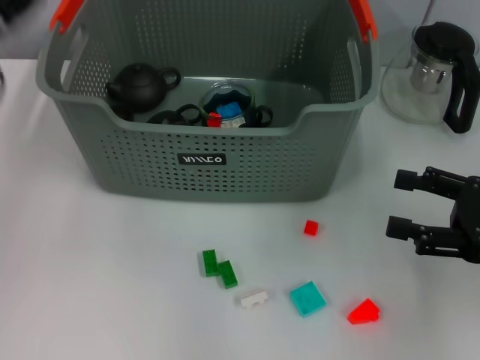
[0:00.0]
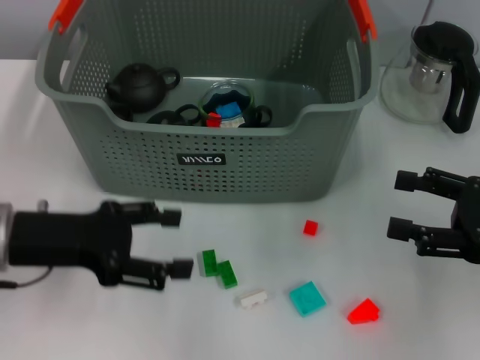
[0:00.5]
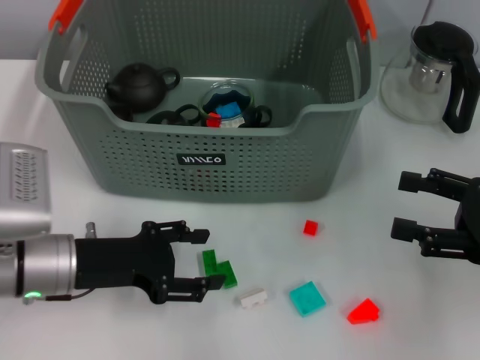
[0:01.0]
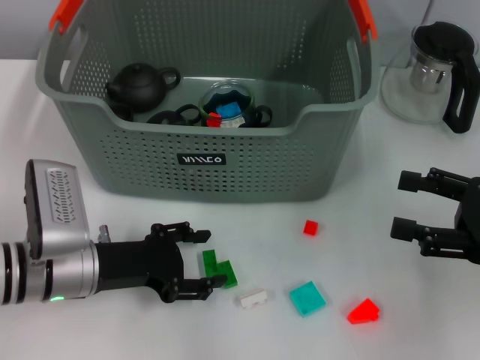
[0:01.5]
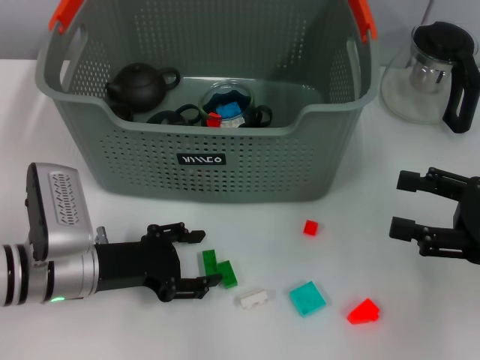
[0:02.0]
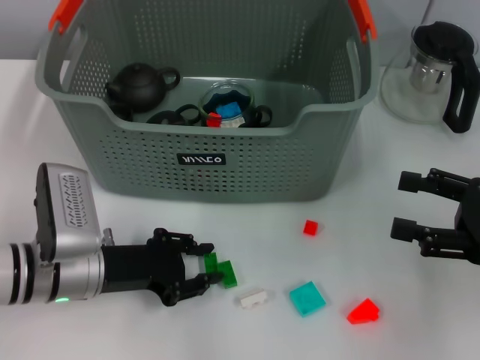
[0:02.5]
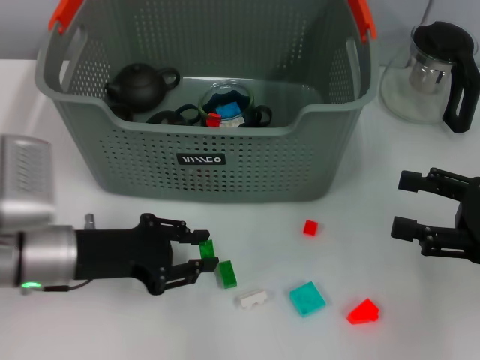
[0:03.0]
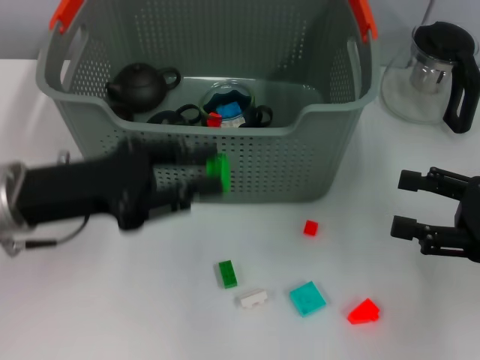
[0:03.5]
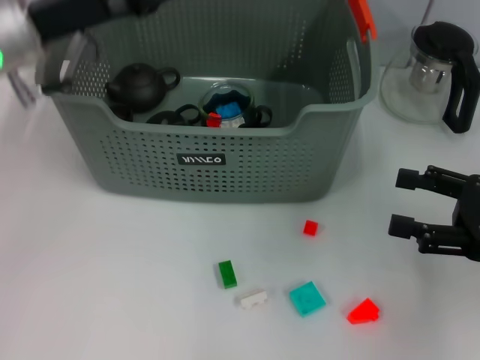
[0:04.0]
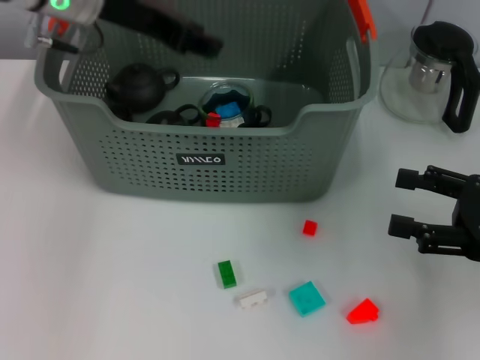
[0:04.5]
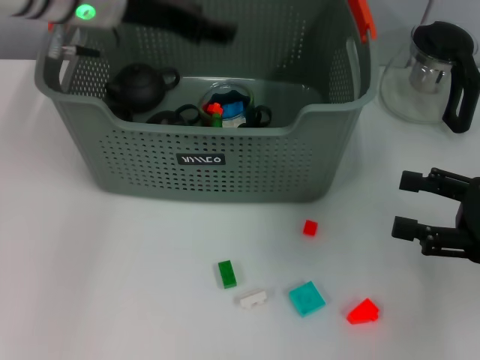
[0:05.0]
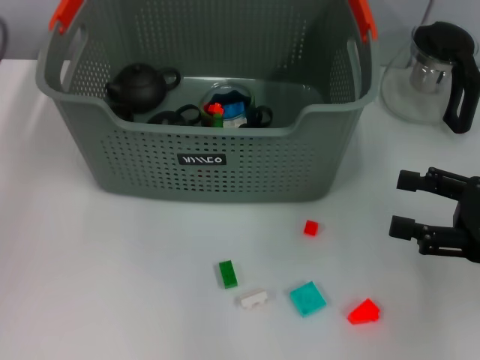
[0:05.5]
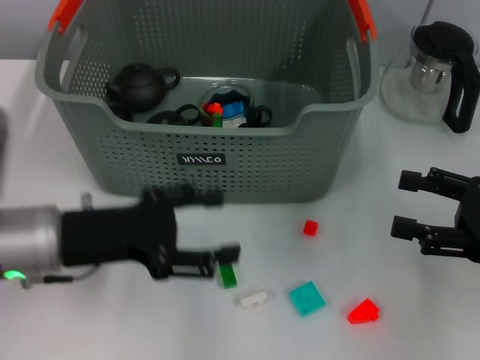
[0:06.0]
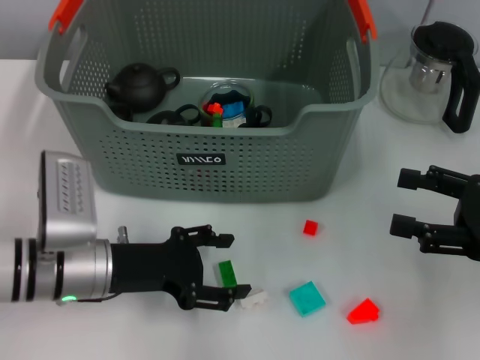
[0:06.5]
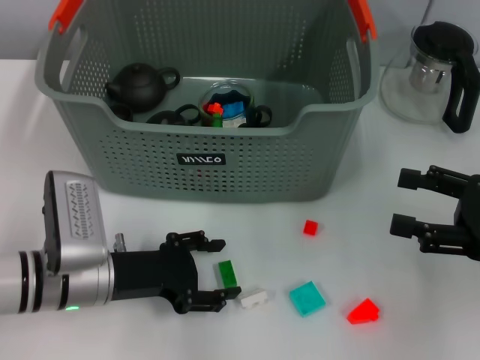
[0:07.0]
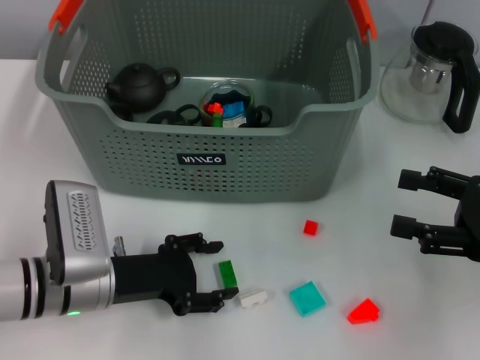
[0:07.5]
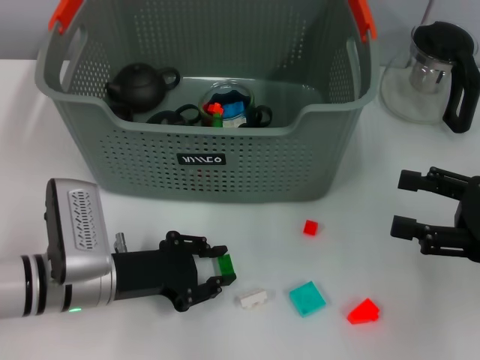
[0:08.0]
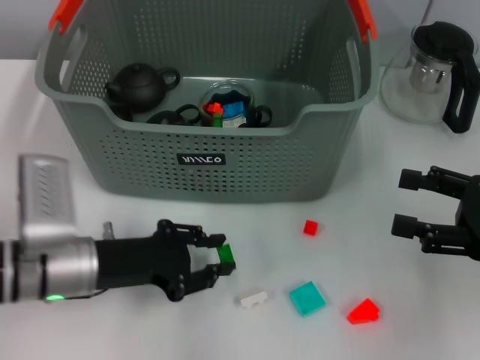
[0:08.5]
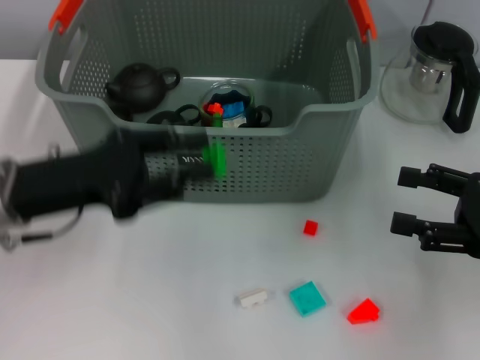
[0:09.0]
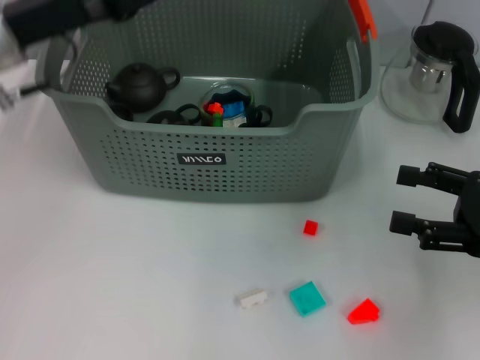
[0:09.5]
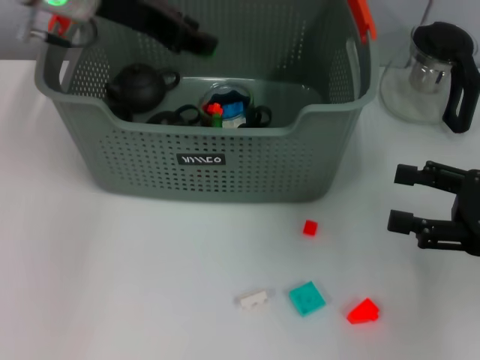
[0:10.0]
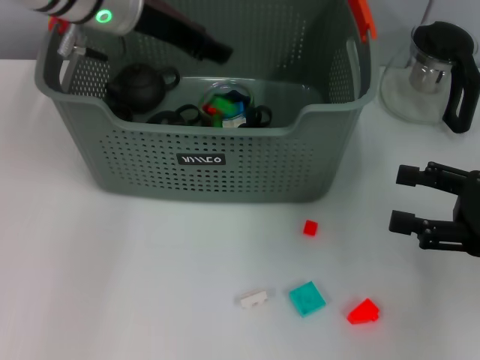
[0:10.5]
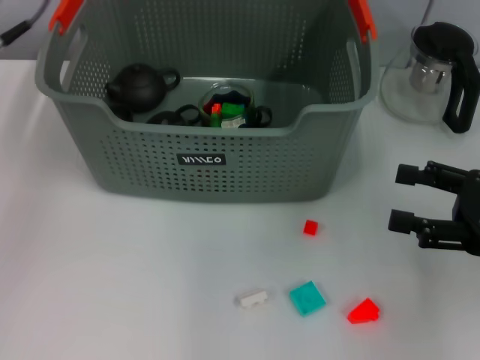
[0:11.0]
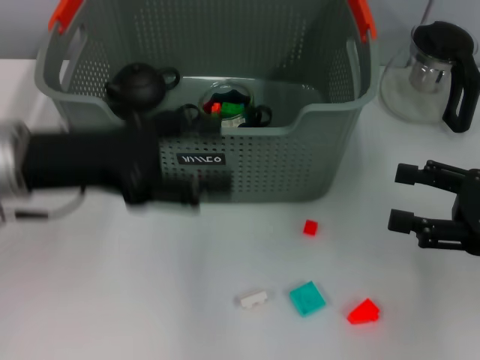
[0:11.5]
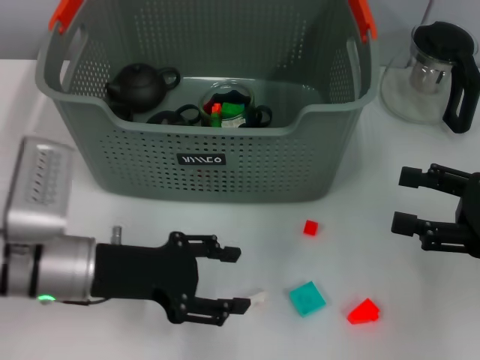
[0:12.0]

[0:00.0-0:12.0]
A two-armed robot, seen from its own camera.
Task of the whole recording: pick up the teacup on the table and place it into the storage bin, pick up the block on the table and place it into the storage bin.
Step, 0:00.0 to 0:02.5: Grasp the green block with left gripper.
Step, 0:03.0 to 0:05.0: Place the green block in the storage box with left gripper.
Step, 0:05.5 to 0:08.0: Grasp the green block with left gripper.
Step, 0:08.5 to 0:10.5: Place the green block in the storage box with left gripper.
0:00.0 to 0:02.0: The left gripper shifts about 20 cm downward and to the right.
0:02.0 to 0:04.0: The left gripper shifts approximately 20 cm upward and forward.
0:04.0 to 0:06.0: The left gripper heads downward and backward, covering roughly 15 cm, and opens its fingers.
0:06.0 to 0:08.0: The left gripper is displaced downward by approximately 10 cm, and closes its fingers.
0:08.0 to 0:10.0: The left gripper travels upward and forward by roughly 30 cm.
0:10.0 to 0:12.0: The left gripper moves downward and backward, approximately 25 cm, and opens.

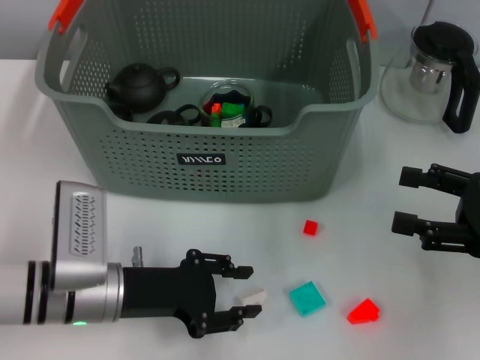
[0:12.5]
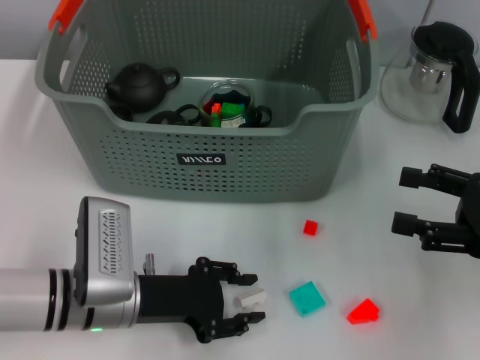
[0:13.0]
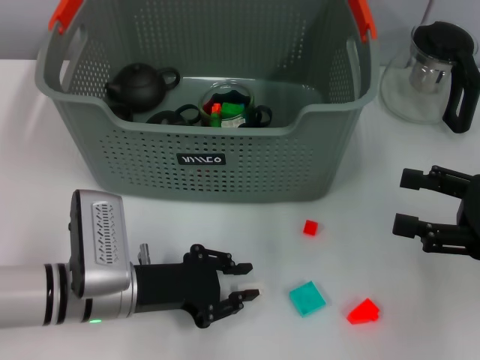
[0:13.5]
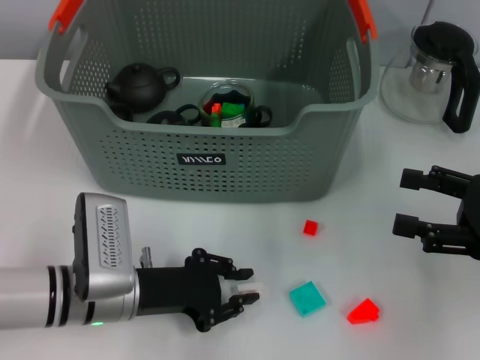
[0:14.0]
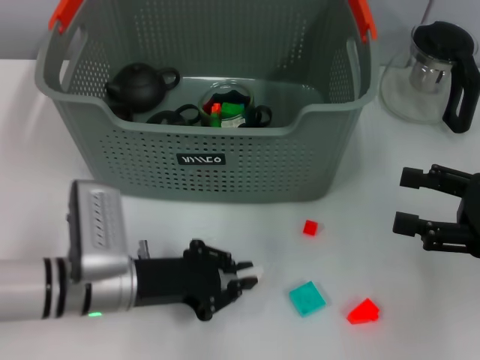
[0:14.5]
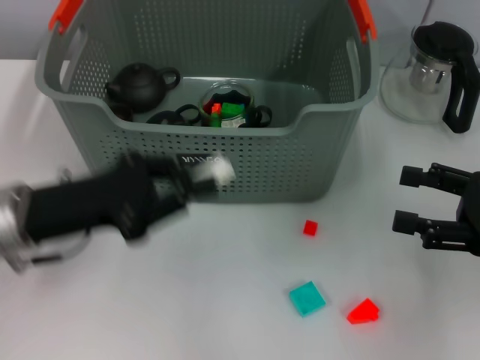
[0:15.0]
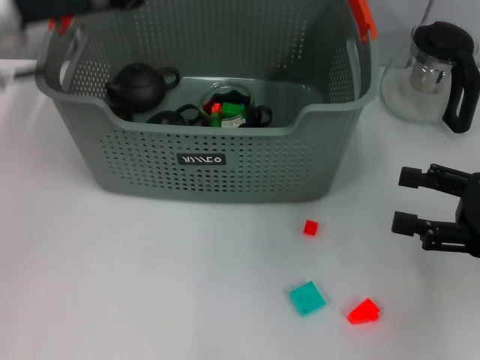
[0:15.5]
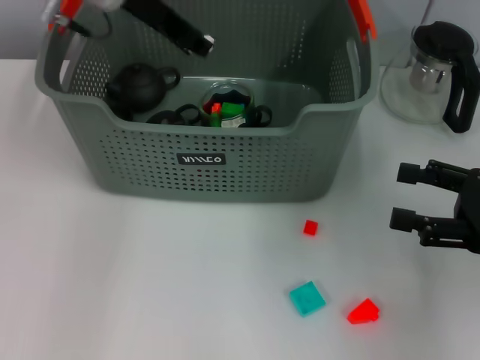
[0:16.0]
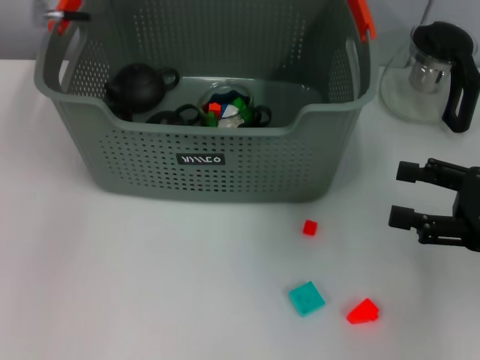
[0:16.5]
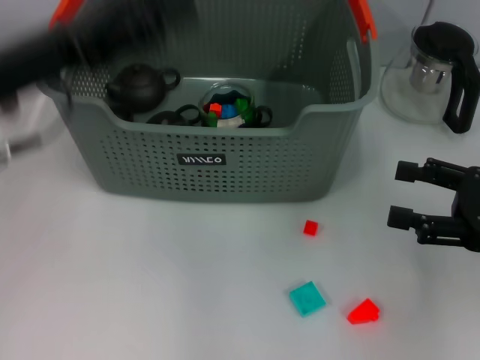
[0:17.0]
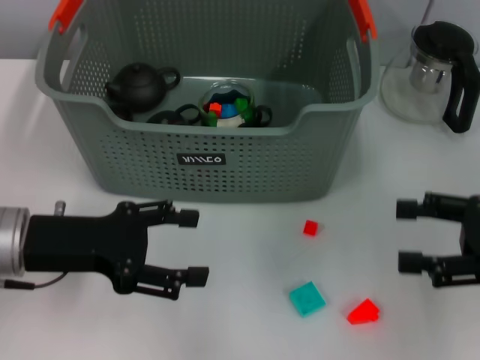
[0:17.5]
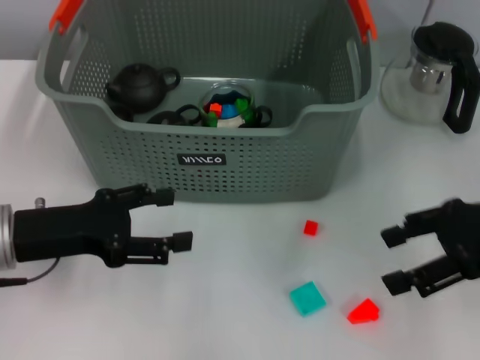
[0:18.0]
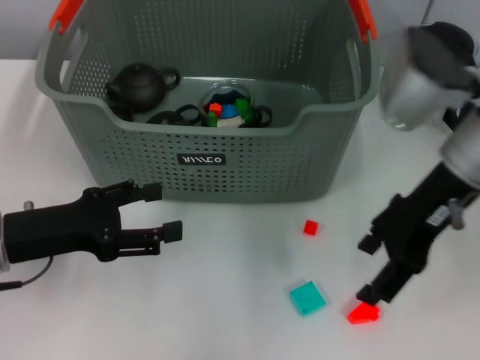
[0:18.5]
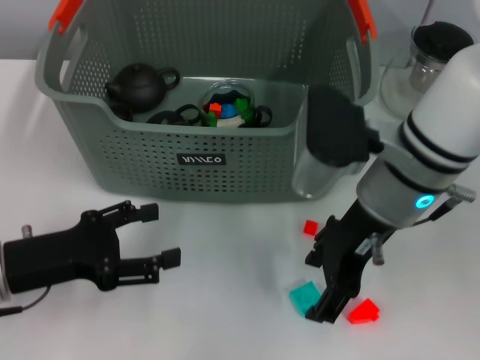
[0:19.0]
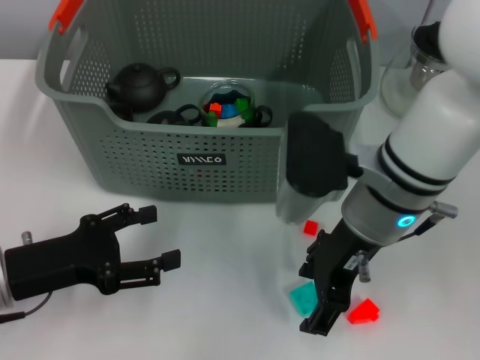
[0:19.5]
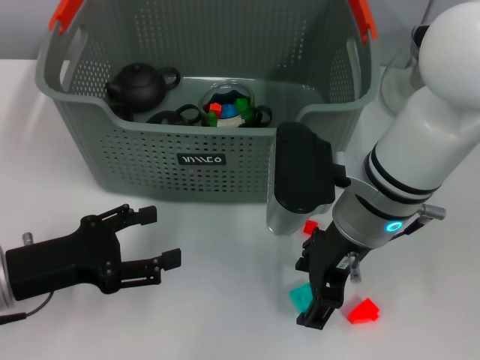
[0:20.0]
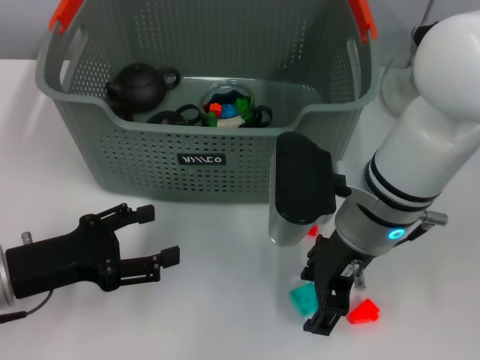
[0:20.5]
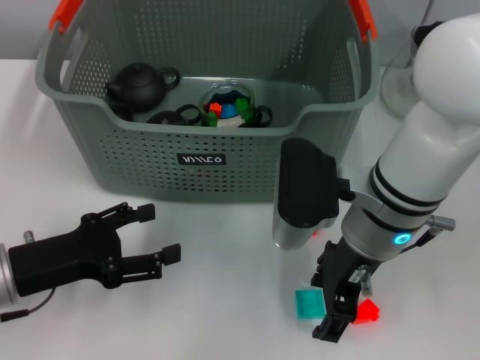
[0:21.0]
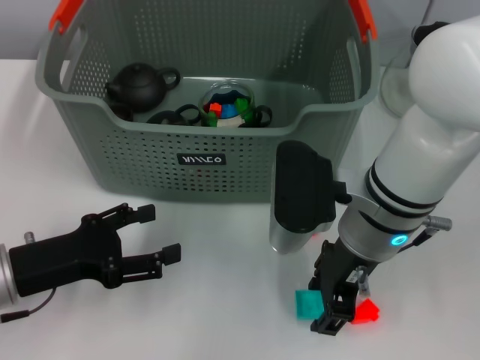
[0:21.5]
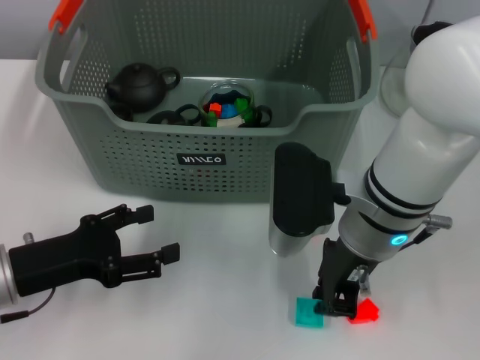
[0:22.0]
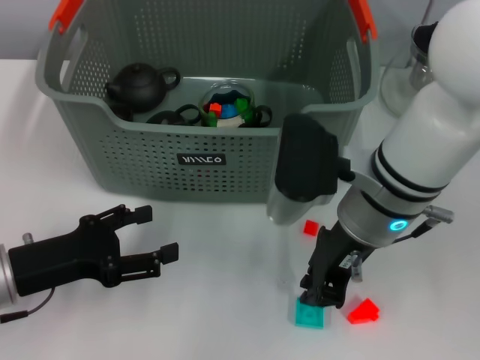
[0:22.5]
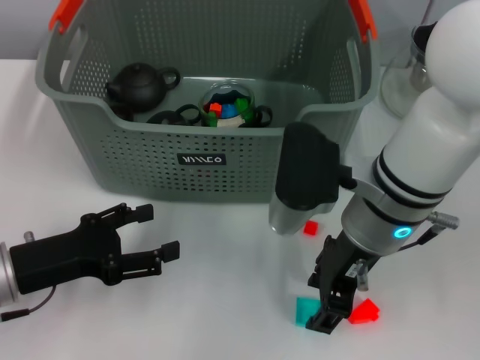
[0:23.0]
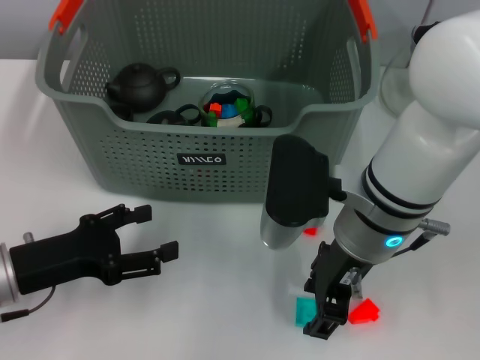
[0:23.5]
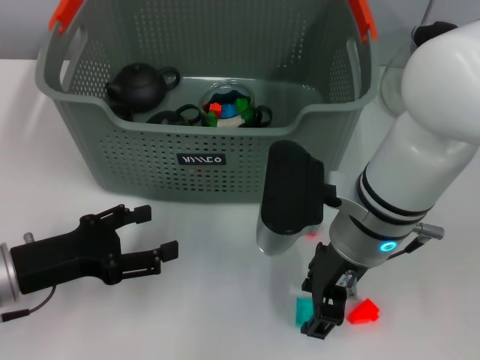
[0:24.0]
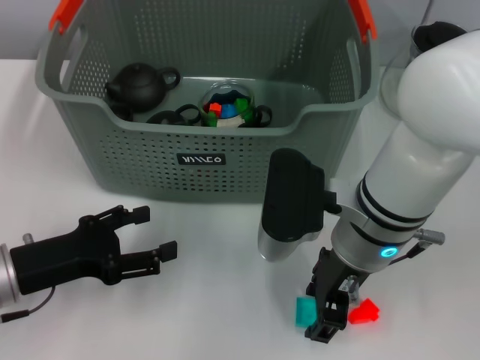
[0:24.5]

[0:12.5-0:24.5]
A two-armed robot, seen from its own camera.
Task of the whole recording: pick up the teacup on the table and place it into the storage bin, pick up the block on the table and place it into the storage bin.
Step, 0:14.5 to 0:16.0: Place the white block in the storage box with left gripper.
0:12.5 to 0:14.5: The left gripper closes up.
0:14.5 to 0:16.5: The left gripper is displaced upward and forward by about 30 cm.
0:16.5 to 0:18.5: The right gripper moves to the left, upward and forward, roughly 20 cm; the left gripper is displaced downward, backward and to the left by approximately 25 cm, and opens up.
0:18.5 to 0:20.5: The right gripper is displaced to the left and downward by some 10 cm.
0:20.5 to 0:22.5: The right gripper closes up.
0:22.5 to 0:24.5: The right gripper opens its fingers.

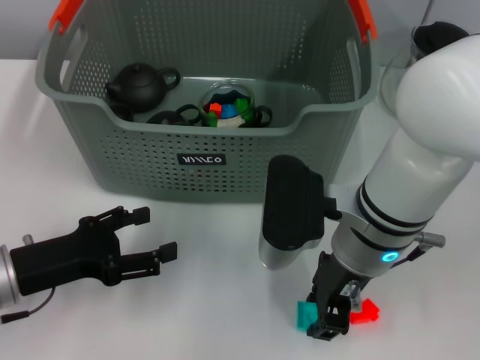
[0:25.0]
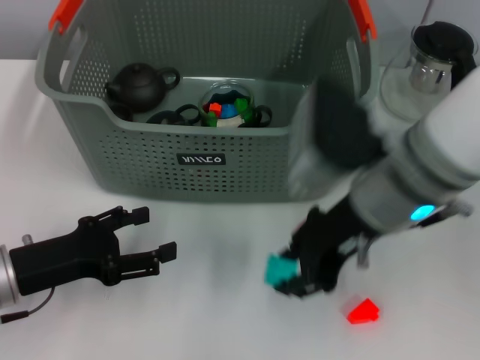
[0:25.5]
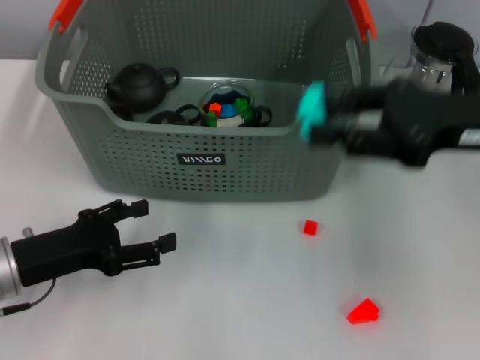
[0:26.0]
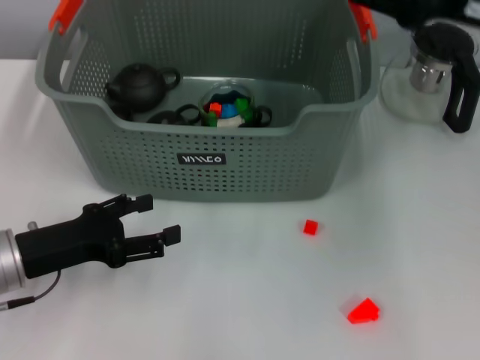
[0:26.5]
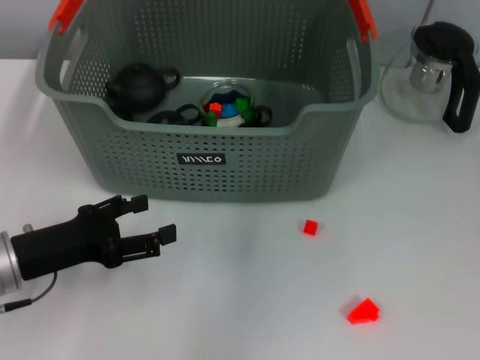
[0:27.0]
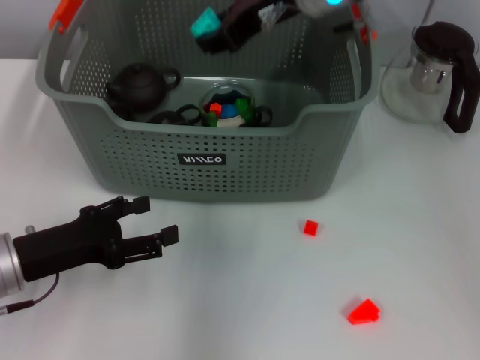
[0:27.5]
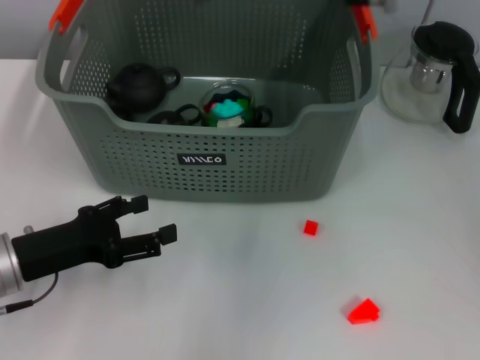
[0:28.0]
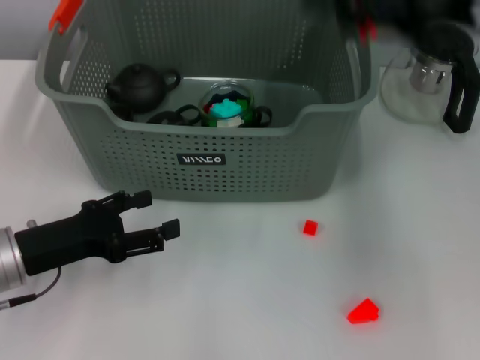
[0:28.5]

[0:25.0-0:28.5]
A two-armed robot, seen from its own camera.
Task of the whole recording: pick up the teacup on the table and place it into the storage bin, pick up the block on the table and place it into the storage bin.
Step, 0:25.5 to 0:27.5: Place the light blue block in the storage box with right gripper.
0:25.0 to 0:27.0: The right gripper heads upward and forward, covering approximately 25 cm.
0:27.0 to 0:28.5: The right gripper moves to the right, backward and downward, roughly 15 cm, and opens its fingers.
